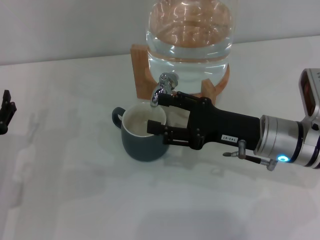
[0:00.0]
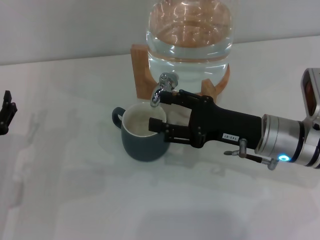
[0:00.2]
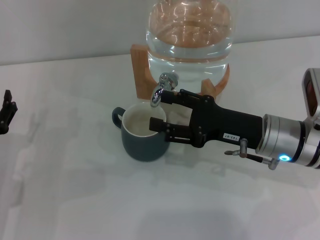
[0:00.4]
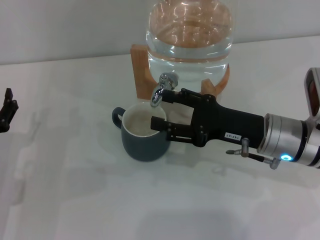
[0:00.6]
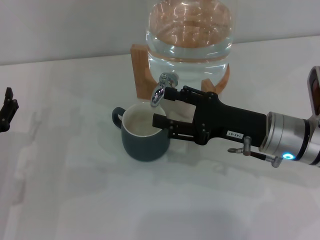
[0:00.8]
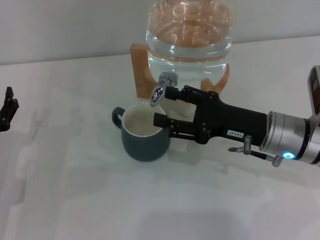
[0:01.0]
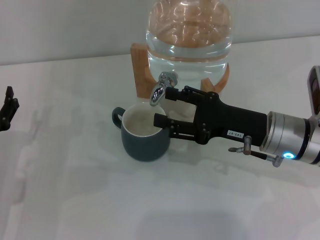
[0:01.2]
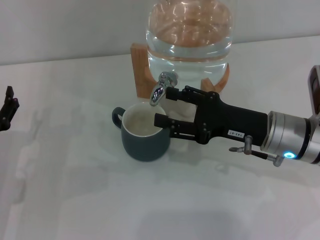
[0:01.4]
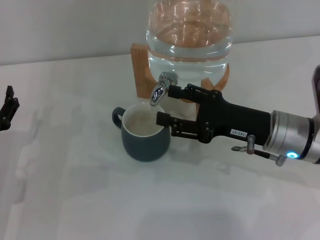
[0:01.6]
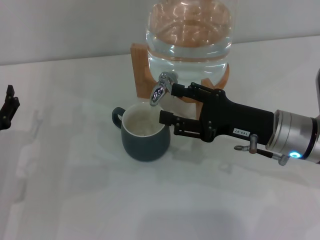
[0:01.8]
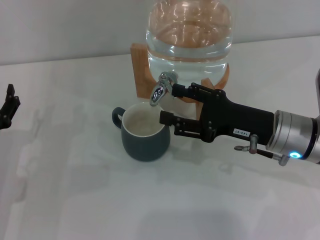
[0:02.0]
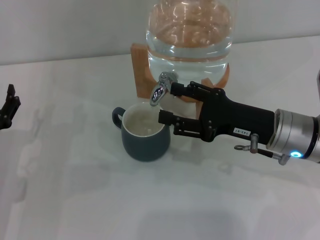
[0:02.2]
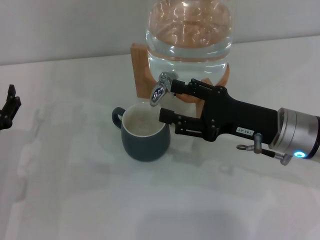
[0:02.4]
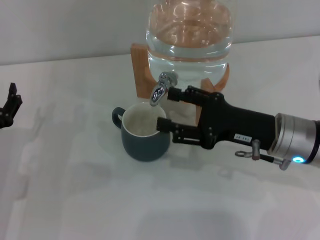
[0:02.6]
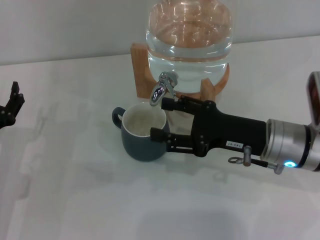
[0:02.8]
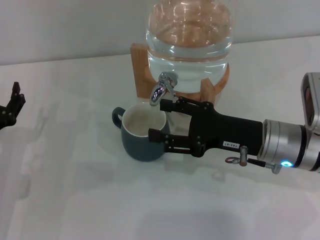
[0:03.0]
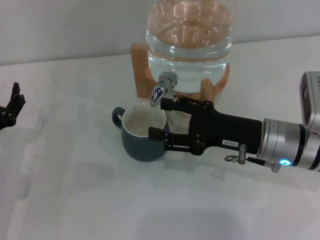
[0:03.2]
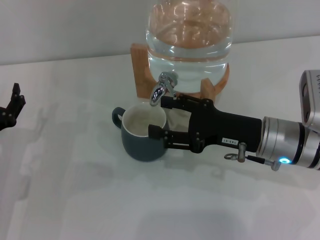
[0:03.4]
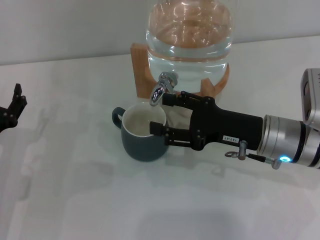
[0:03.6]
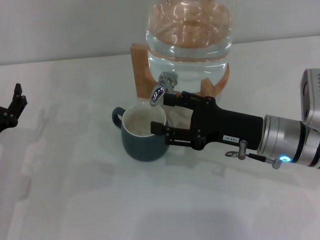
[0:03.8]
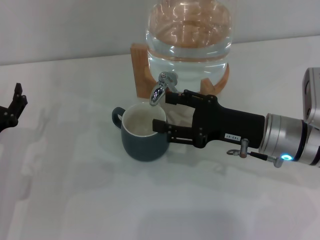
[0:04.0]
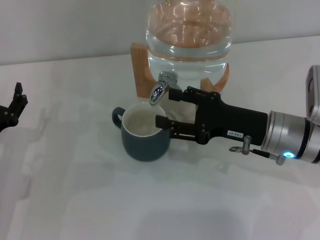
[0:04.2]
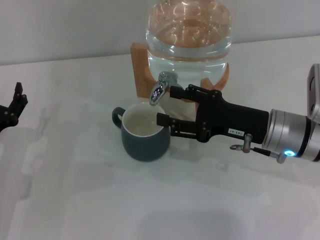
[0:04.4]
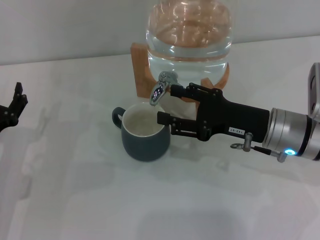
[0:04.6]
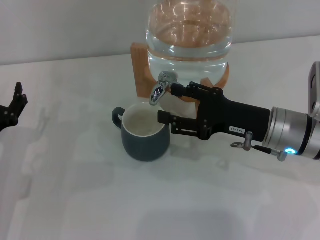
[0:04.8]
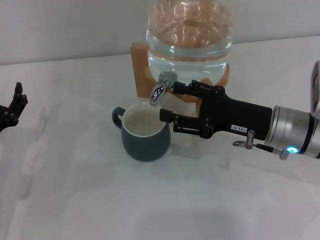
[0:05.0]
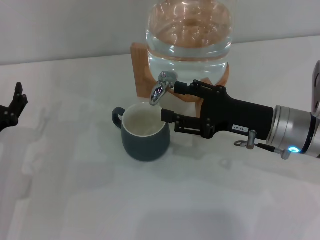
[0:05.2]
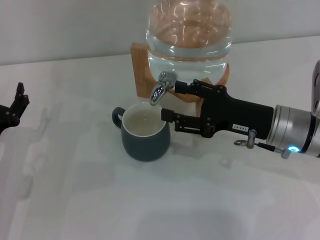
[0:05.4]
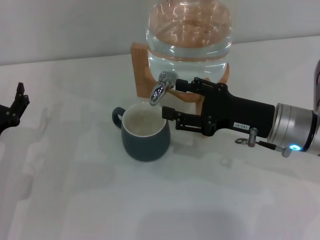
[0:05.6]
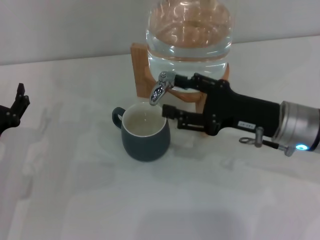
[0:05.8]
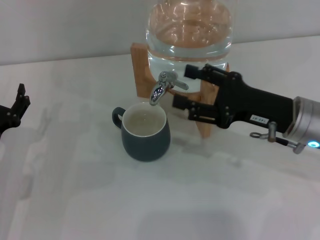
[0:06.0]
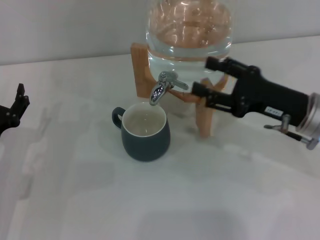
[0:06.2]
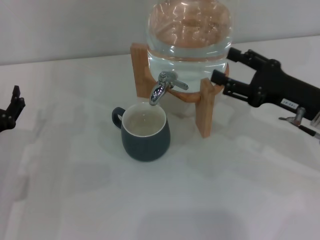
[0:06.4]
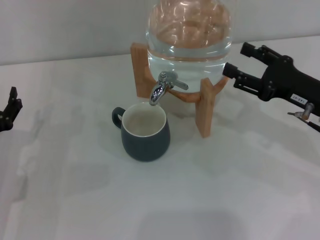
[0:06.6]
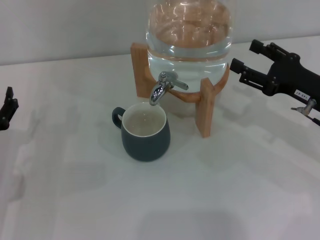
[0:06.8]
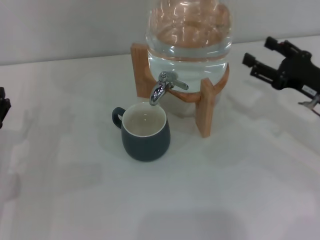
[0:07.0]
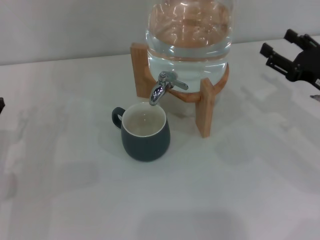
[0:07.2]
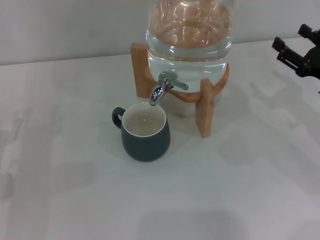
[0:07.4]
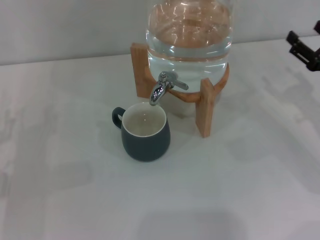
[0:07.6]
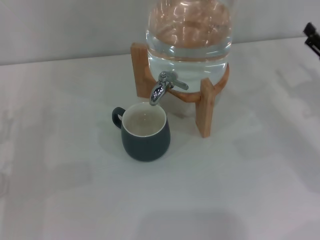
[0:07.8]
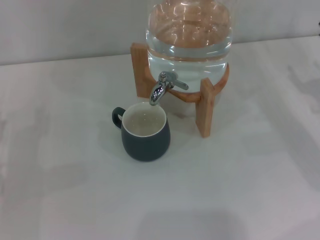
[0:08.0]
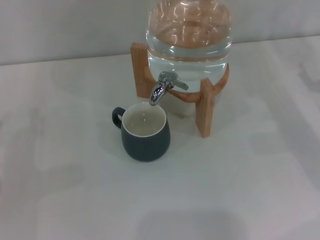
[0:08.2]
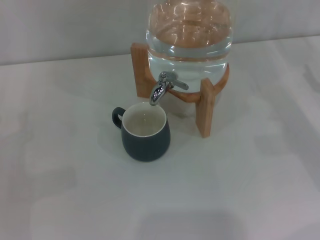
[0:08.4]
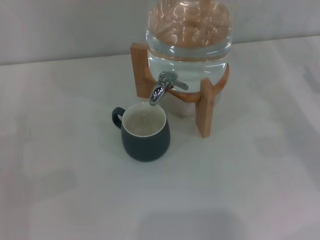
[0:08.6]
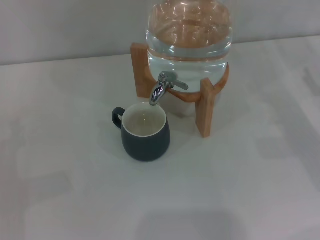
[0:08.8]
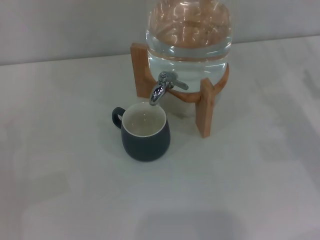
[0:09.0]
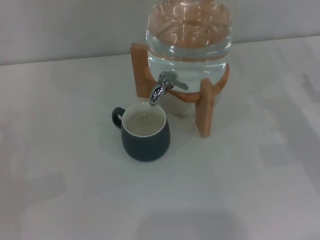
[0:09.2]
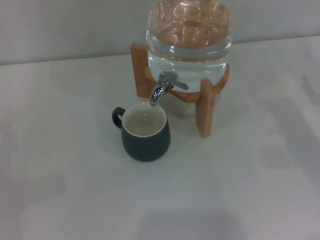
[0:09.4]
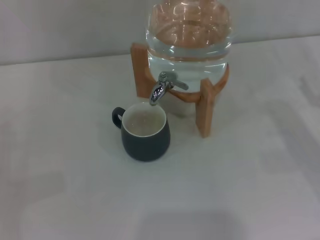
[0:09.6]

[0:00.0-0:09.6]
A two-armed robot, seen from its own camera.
Task of the whole recording: the left gripper pick up the black cup and place it horizontally under the faucet, the right gripper turn on the faucet to fill the cup, and then turn off the faucet.
Step, 0:00.0 to 0:06.0: Close the dispenser valve with the right gripper.
0:00.0 to 0:01.6: Neither gripper changes place.
0:01.6 to 0:03.2: The two grippers keep their place.
0:03.2 to 0:04.8: The grippers make only small movements.
0:04.8 to 0:06.4: The right gripper travels to the right by some 5 cm.
0:06.4 to 0:08.0: The right gripper shifts about 10 cm to the right.
